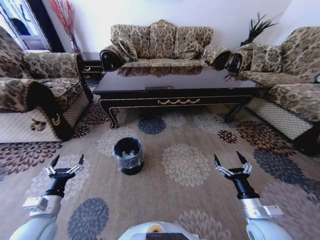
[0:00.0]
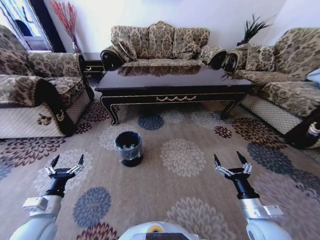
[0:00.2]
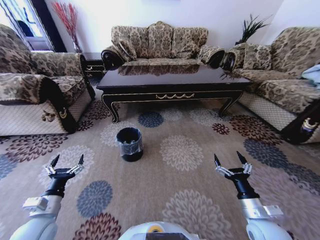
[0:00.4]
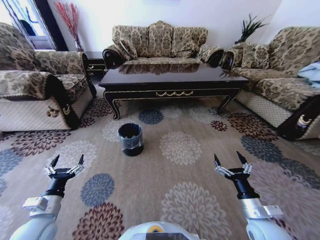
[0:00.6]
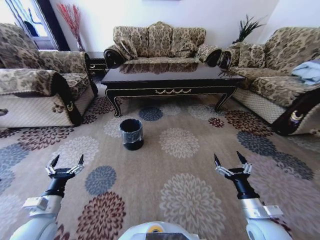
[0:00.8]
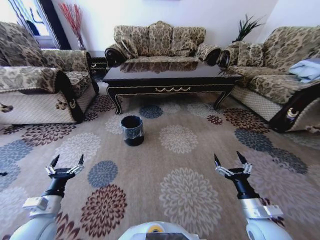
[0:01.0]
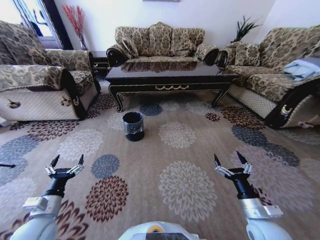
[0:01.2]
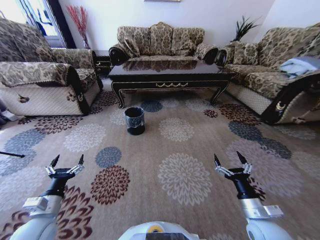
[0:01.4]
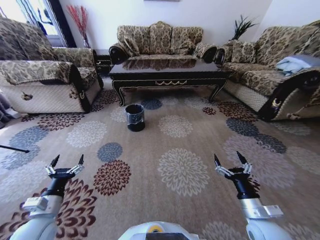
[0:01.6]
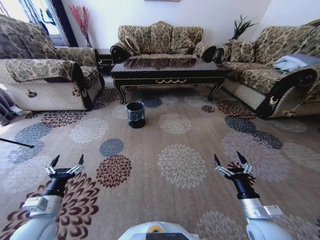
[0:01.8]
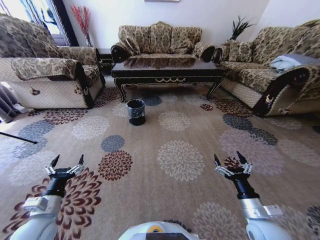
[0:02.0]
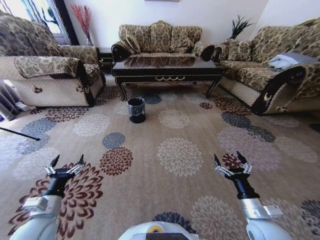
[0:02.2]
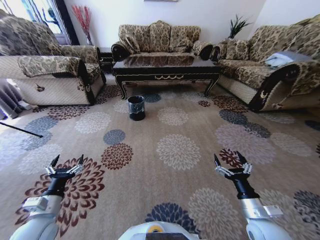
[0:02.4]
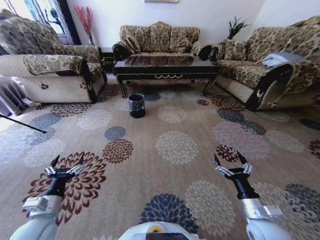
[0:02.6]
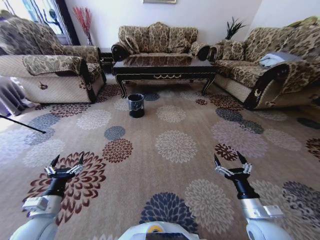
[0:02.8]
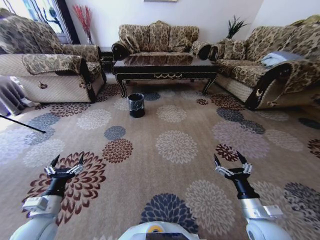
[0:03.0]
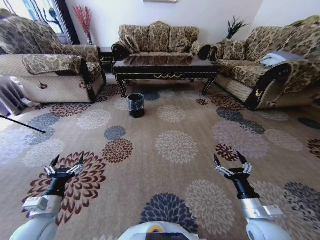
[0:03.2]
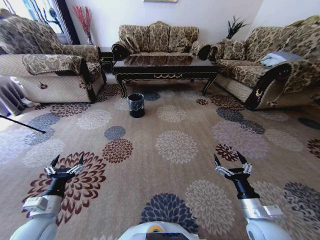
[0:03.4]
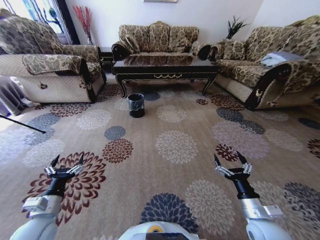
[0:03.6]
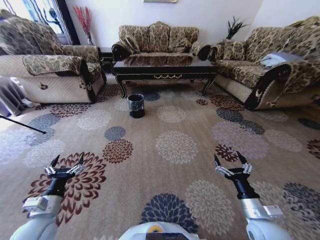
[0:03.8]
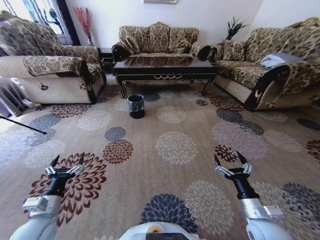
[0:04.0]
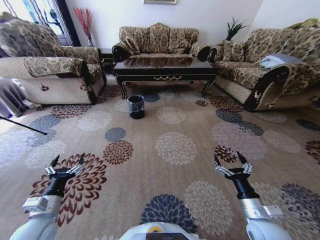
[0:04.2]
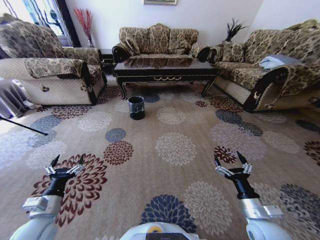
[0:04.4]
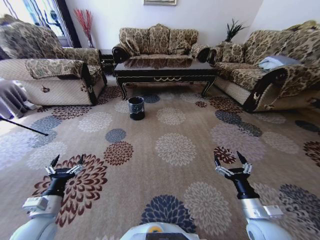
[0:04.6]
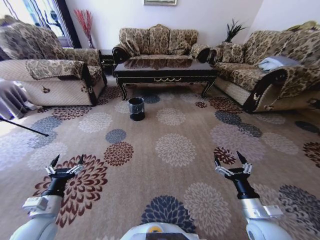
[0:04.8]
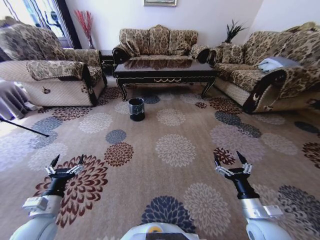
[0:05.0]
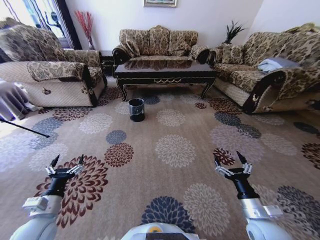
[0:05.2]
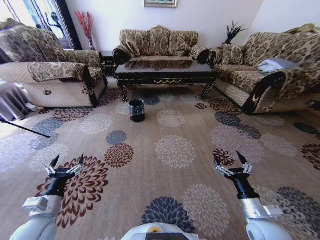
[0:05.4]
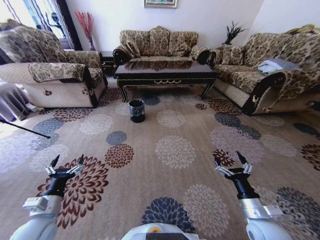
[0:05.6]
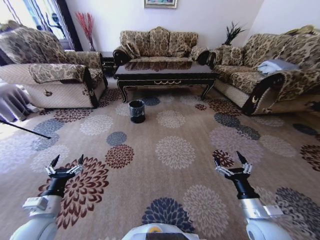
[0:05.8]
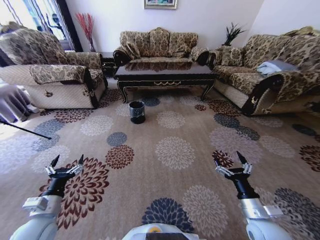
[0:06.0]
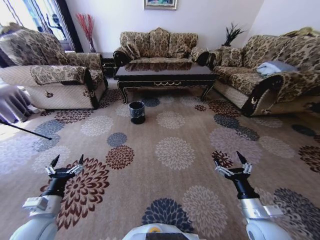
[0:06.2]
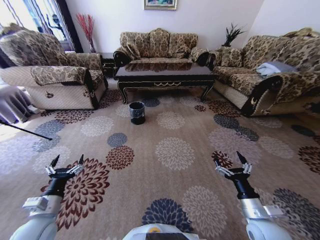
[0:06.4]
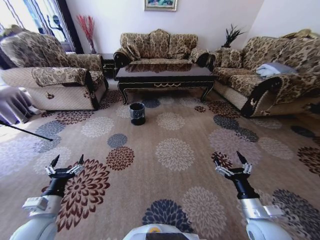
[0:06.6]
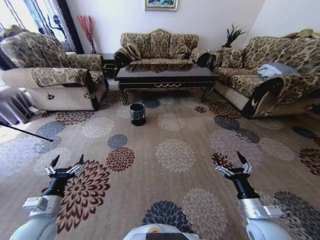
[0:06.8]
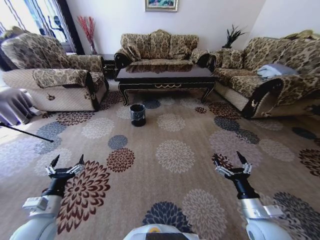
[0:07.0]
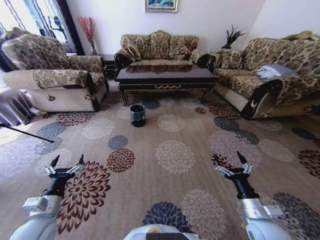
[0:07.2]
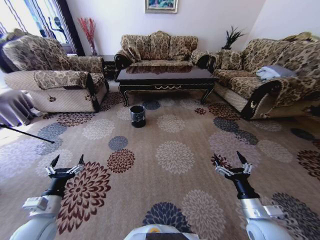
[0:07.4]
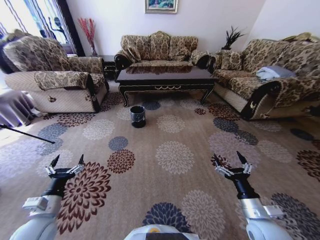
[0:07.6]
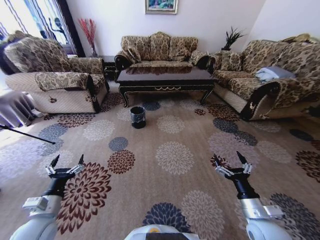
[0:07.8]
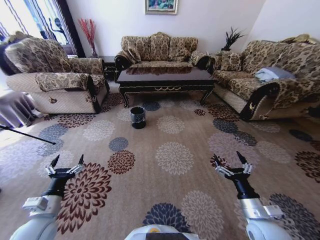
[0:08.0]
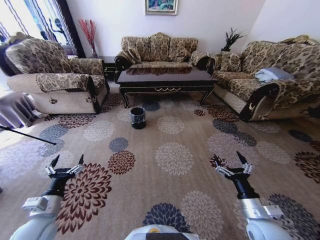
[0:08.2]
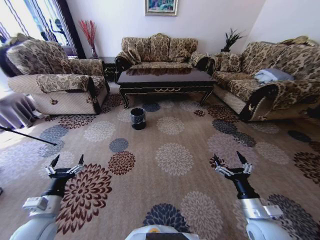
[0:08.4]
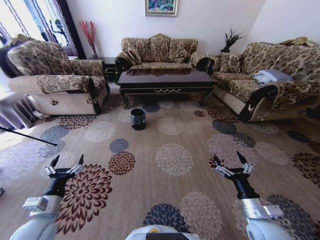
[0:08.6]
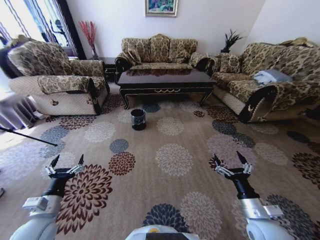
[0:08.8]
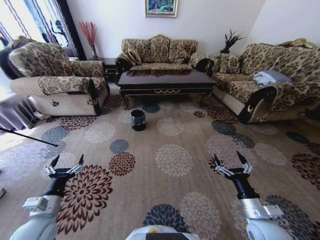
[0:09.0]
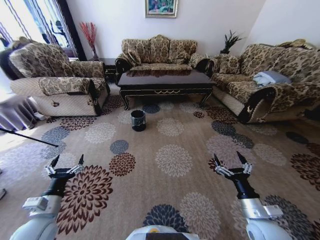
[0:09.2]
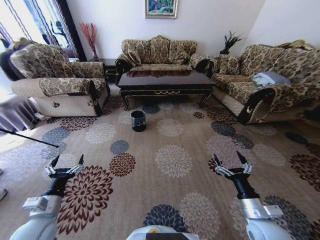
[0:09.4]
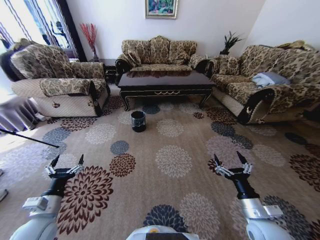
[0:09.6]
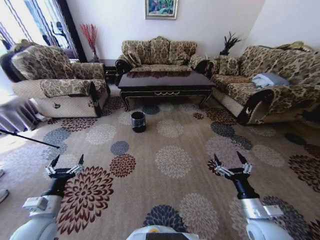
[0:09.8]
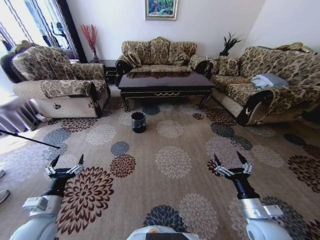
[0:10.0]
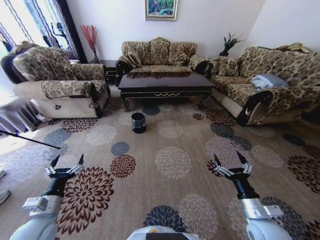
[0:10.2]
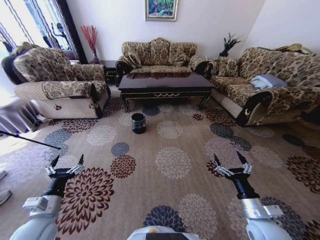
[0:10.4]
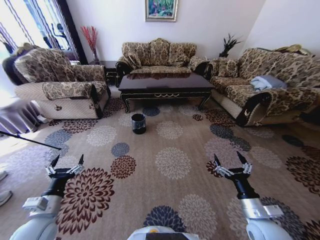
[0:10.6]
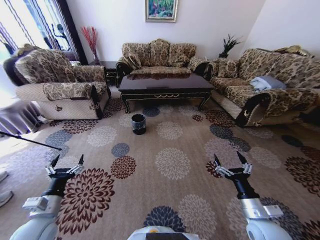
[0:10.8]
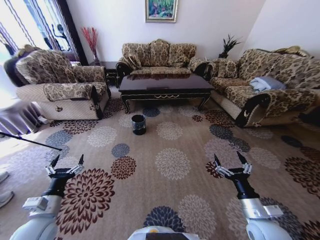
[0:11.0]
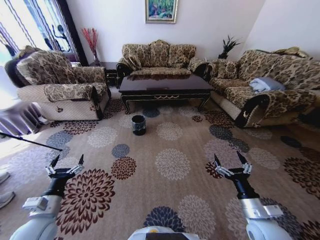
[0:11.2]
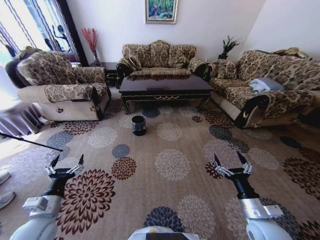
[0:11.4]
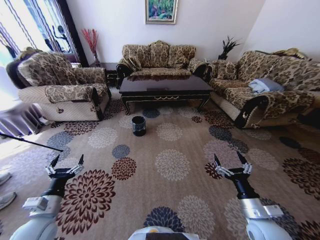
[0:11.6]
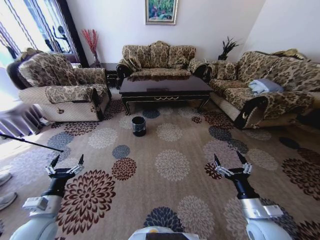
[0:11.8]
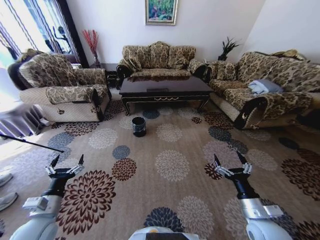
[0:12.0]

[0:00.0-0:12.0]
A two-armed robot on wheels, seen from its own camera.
Task of the whole recording: Move to the front of the table and pick up the trash from the floor, then place it into the trash bin.
0:03.0 to 0:04.4: Neither gripper changes place.

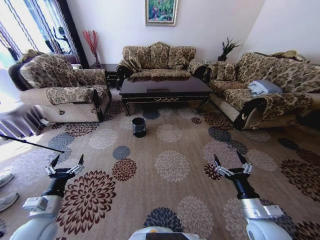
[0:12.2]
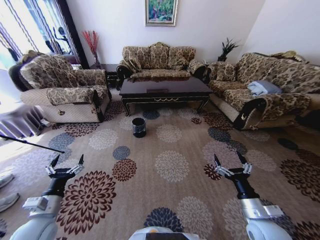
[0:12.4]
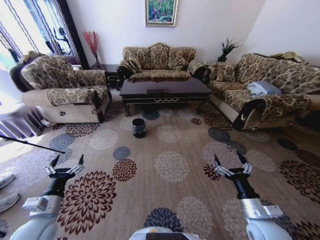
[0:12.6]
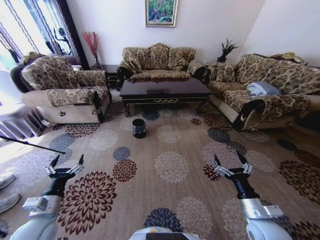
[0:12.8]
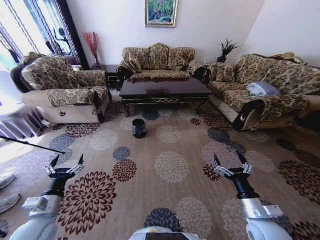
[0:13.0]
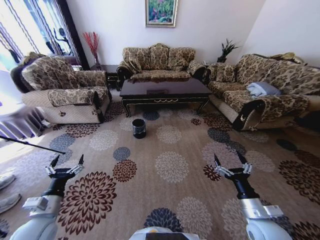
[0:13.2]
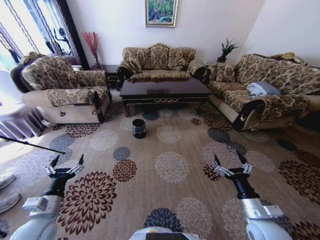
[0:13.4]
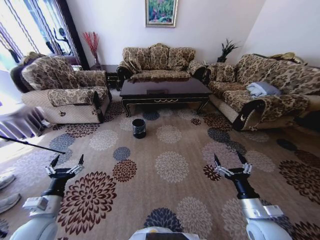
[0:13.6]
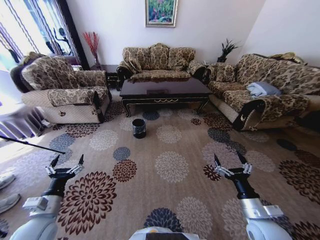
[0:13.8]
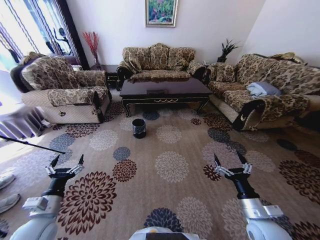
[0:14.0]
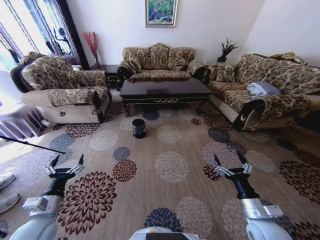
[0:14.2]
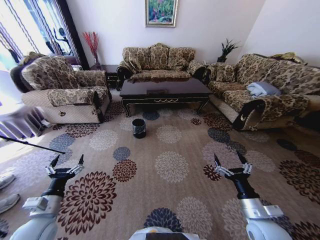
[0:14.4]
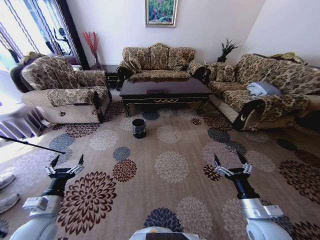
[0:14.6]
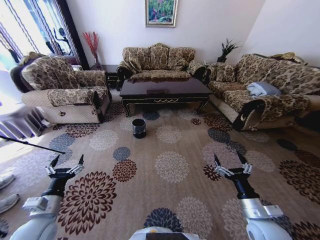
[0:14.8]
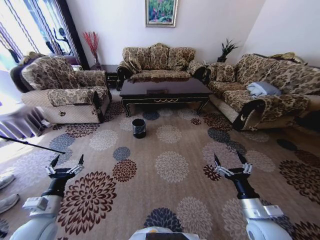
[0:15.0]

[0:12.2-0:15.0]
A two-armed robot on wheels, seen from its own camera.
Task of the whole recording: Move to the front of the table and pick up the trash from the floor, then place it into the trash bin.
0:12.2 to 0:15.0: Both grippers stay about where they are.
